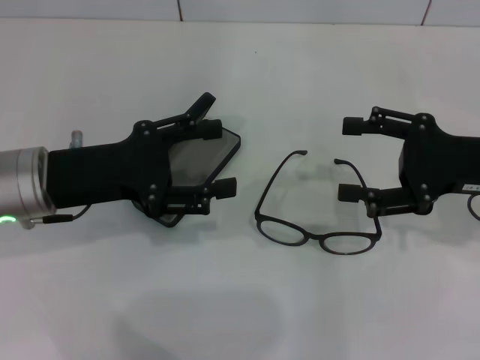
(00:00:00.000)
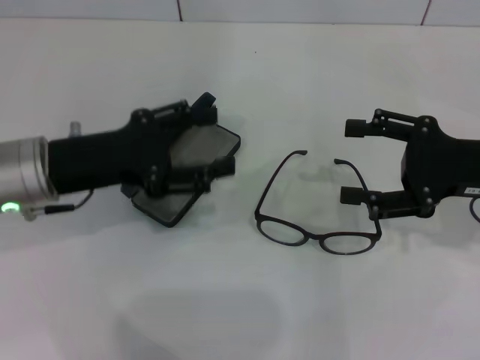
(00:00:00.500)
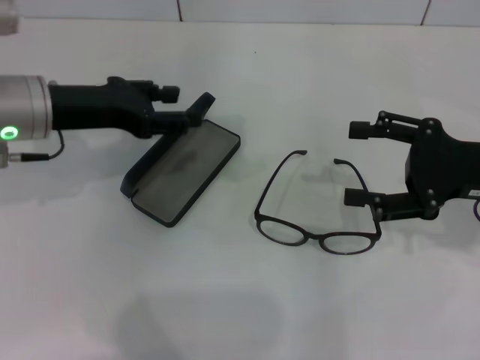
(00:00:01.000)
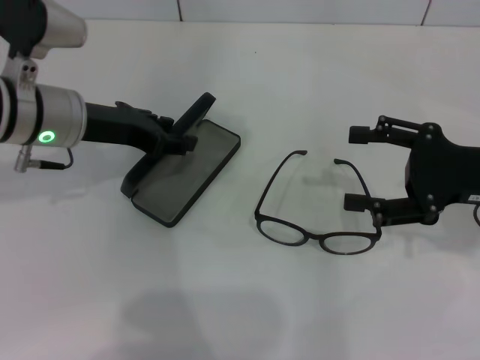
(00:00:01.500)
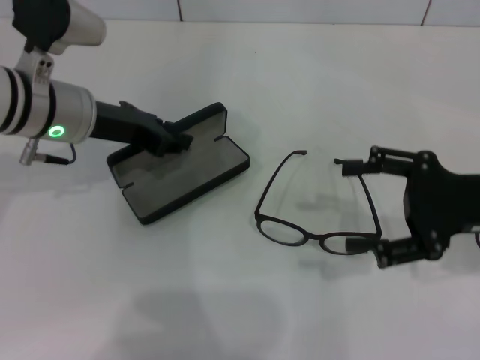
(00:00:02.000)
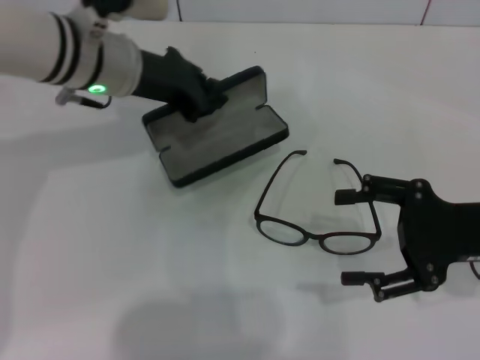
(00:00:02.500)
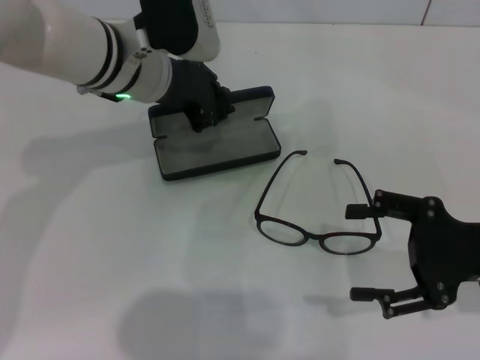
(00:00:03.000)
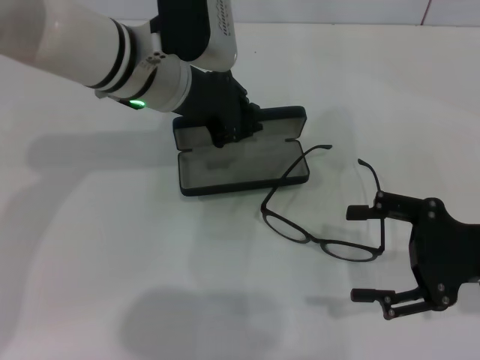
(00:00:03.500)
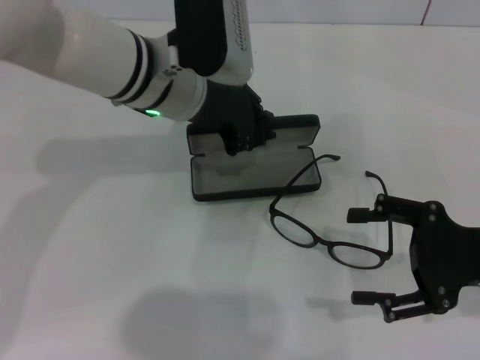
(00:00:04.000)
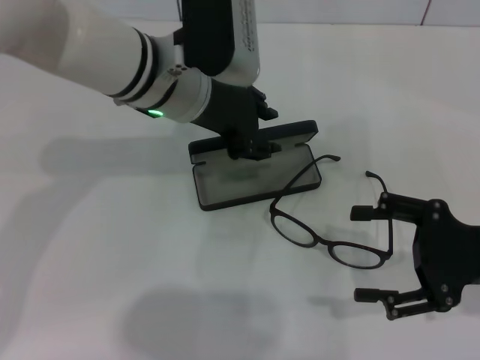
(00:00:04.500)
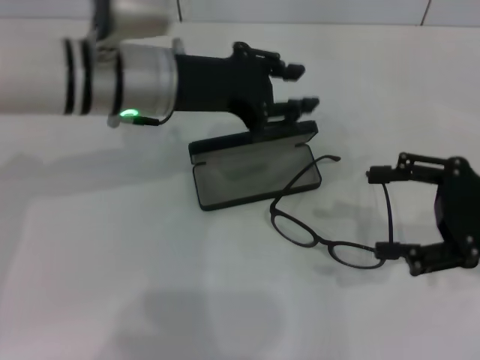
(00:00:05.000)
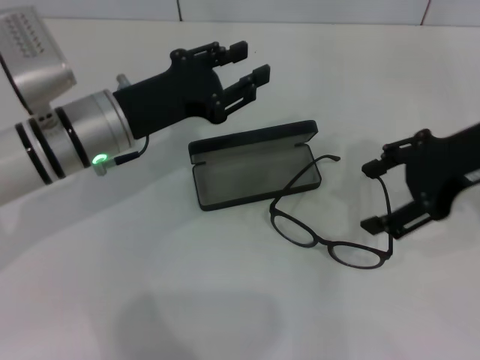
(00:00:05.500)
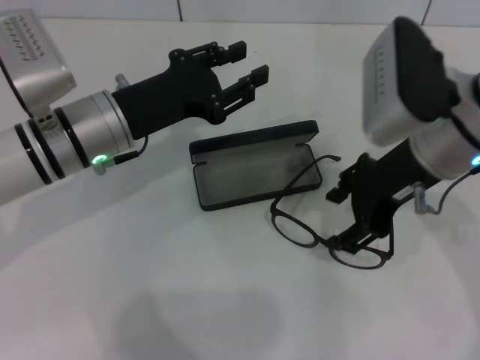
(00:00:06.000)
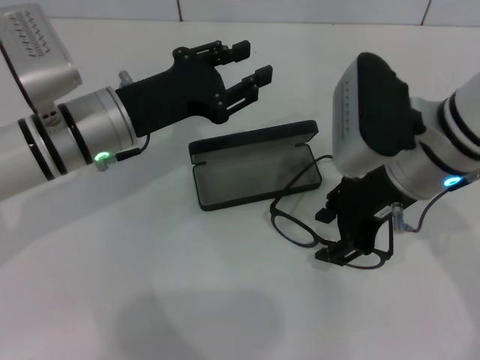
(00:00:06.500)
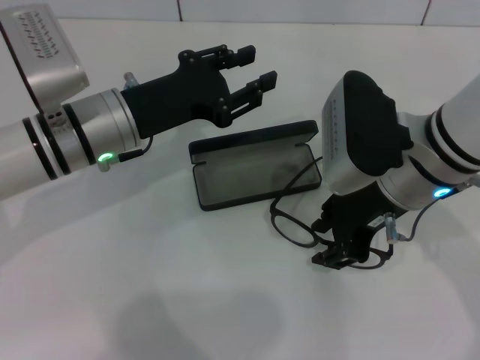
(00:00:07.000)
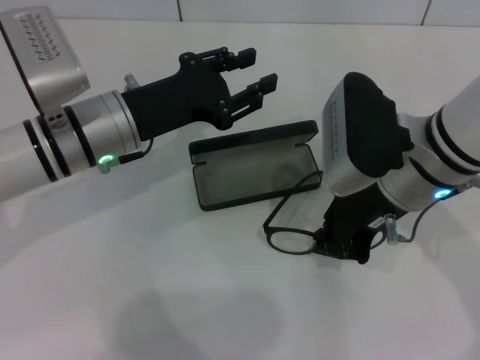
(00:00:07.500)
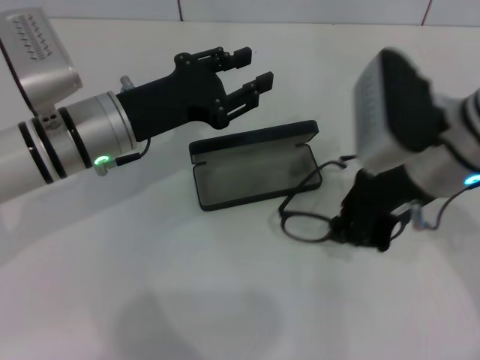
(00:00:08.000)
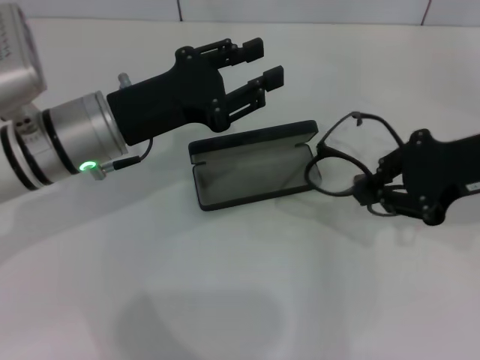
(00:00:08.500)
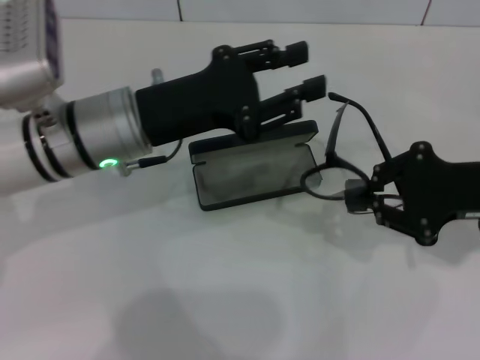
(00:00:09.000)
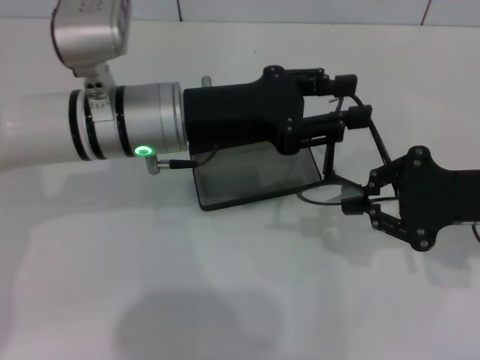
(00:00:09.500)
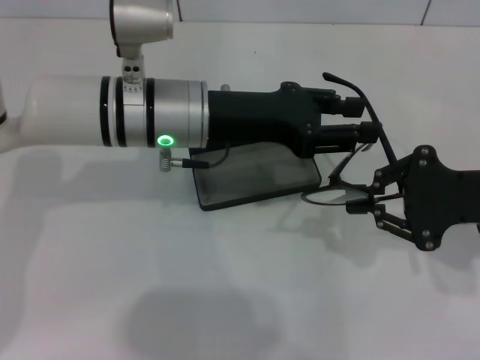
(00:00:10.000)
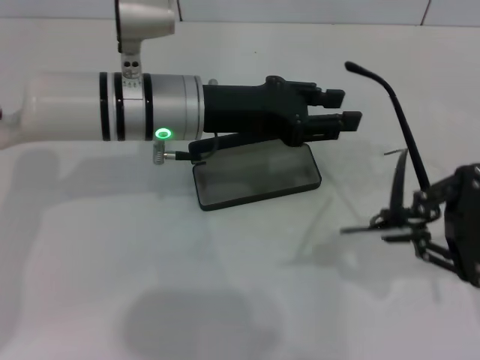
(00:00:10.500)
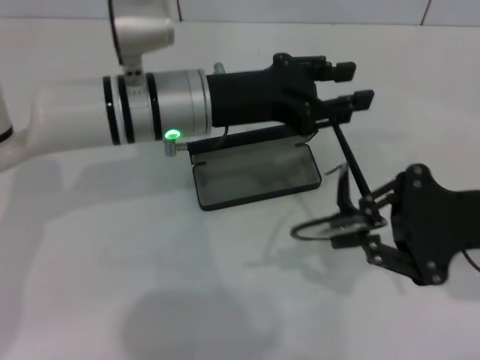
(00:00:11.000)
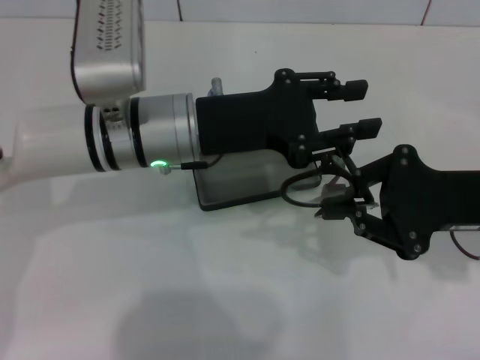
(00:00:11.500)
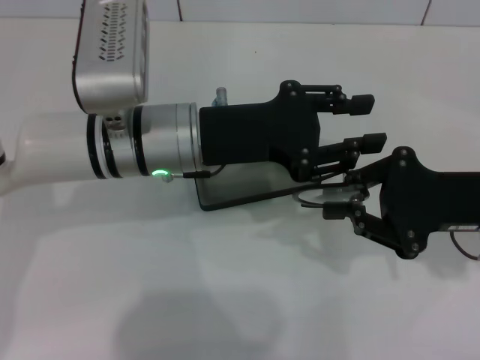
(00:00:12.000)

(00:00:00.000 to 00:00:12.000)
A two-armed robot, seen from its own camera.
Step, 00:00:00.000 - 00:00:02.000: Grab the glasses case with your left hand.
Step, 00:00:02.500 - 00:00:04.000: Place the glasses case in the center of the table with your left hand.
Step, 00:00:04.500 - 00:00:07.500: Grab the eyeglass frame with your right hand.
00:00:00.000 - 00:00:02.000: The left gripper goes some 10 cm forward, and closes its fingers.
00:00:02.000 - 00:00:04.000: The left gripper is displaced to the right by roughly 10 cm, and closes its fingers.
00:00:04.000 - 00:00:06.000: The right gripper heads to the left, upward and forward, covering roughly 15 cm, while the left gripper heads to the left and downward, covering roughly 10 cm, and opens.
00:00:06.000 - 00:00:08.000: The right gripper closes up.
00:00:08.000 - 00:00:10.000: The left gripper shifts some 5 cm to the right, while the right gripper is displaced to the right by roughly 10 cm.

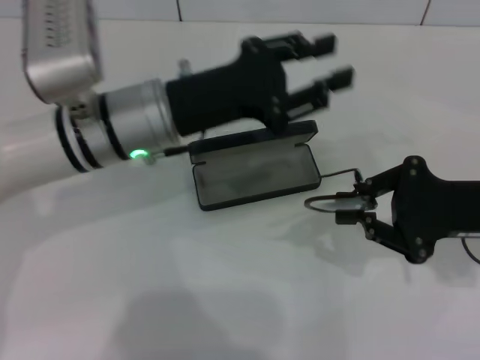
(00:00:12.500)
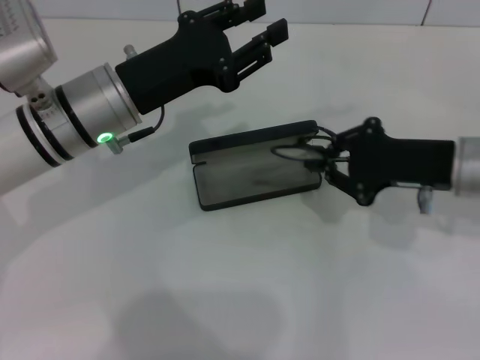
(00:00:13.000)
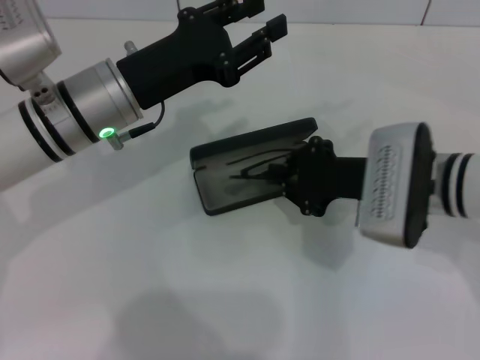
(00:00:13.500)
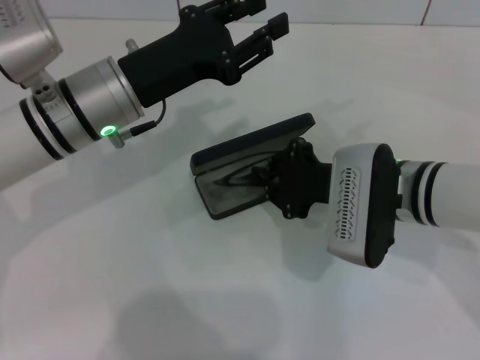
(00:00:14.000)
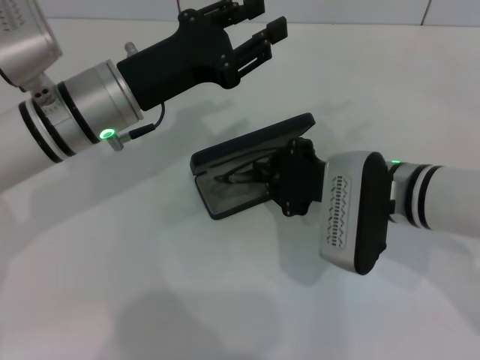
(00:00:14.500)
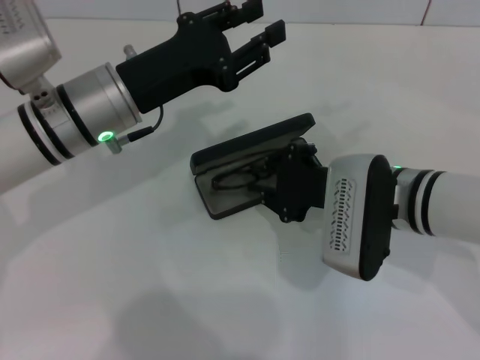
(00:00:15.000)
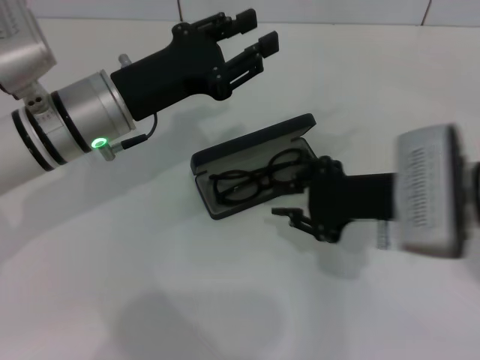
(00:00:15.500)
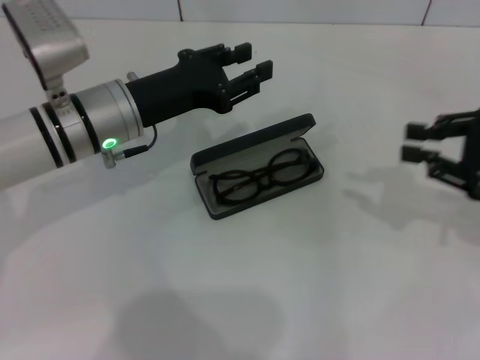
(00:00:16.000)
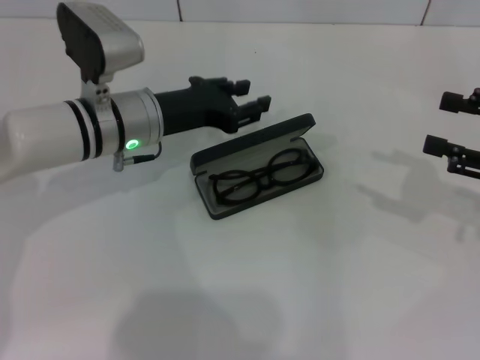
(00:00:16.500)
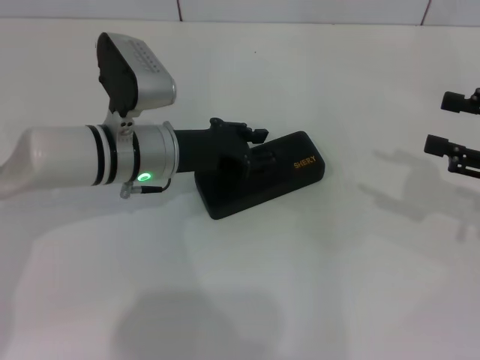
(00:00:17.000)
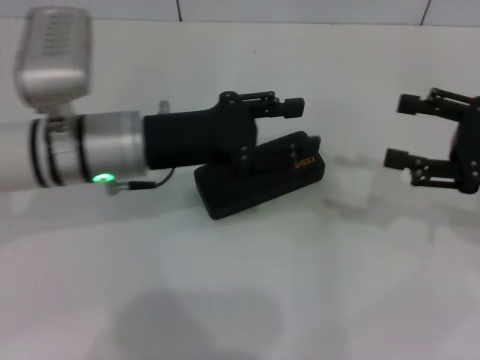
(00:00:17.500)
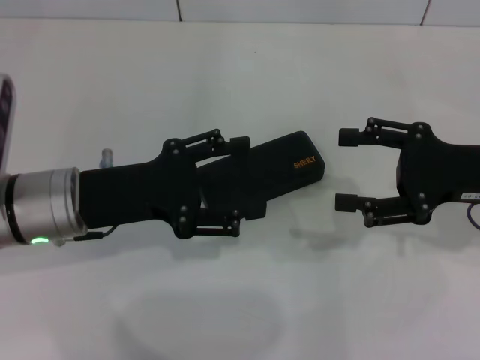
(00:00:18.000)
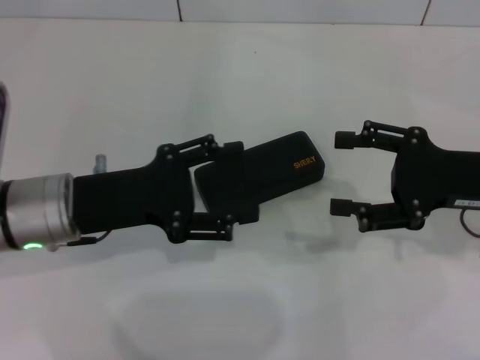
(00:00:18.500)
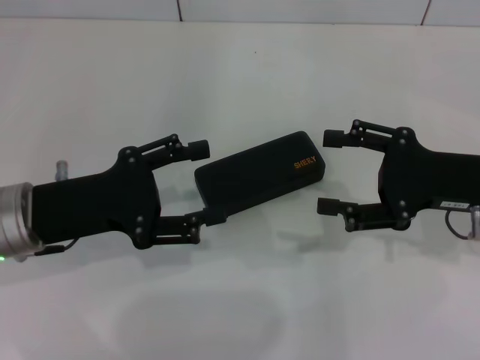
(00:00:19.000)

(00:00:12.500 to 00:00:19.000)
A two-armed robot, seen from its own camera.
Step, 00:00:12.500 - 00:00:15.000: Put the glasses into the case with your right hand.
Step, 00:00:15.500 - 00:00:16.500: Close the glasses case with your left hand.
00:00:12.500 - 00:00:14.500: The right gripper moves to the left, roughly 15 cm.
00:00:14.500 - 00:00:17.000: The right gripper shifts roughly 20 cm to the right, and opens up. Meanwhile the left gripper travels downward by some 5 cm.
00:00:17.000 - 00:00:19.000: The right gripper goes roughly 10 cm to the left; the left gripper travels to the left and backward by some 15 cm, and opens its fingers.
